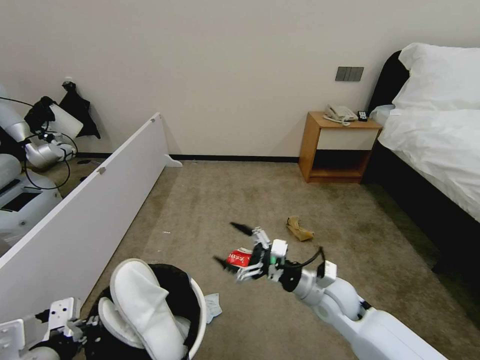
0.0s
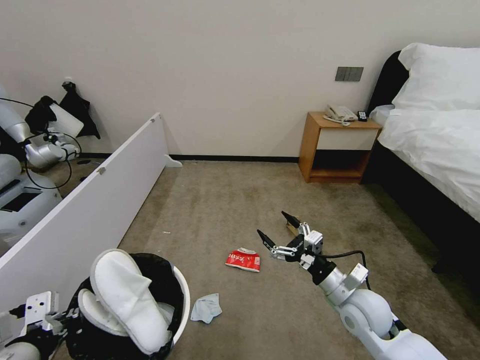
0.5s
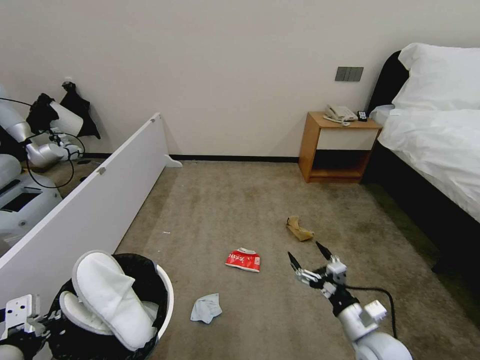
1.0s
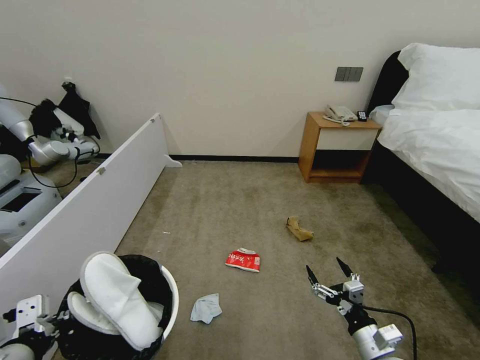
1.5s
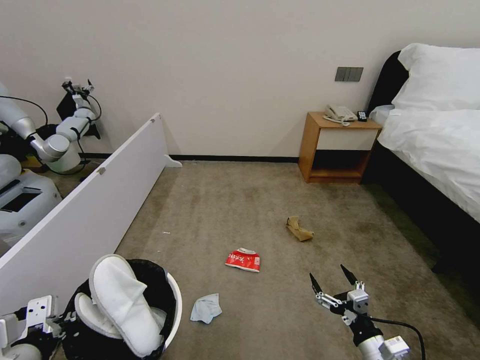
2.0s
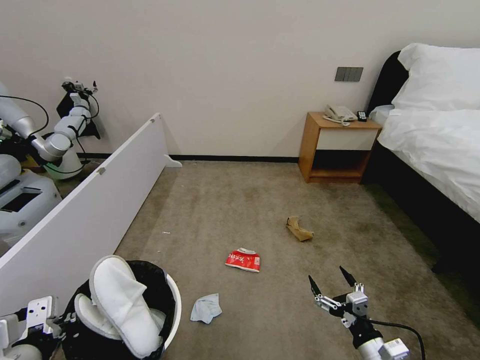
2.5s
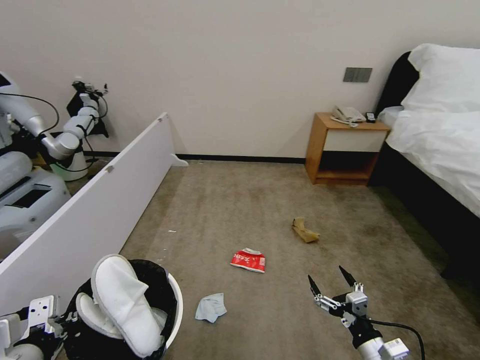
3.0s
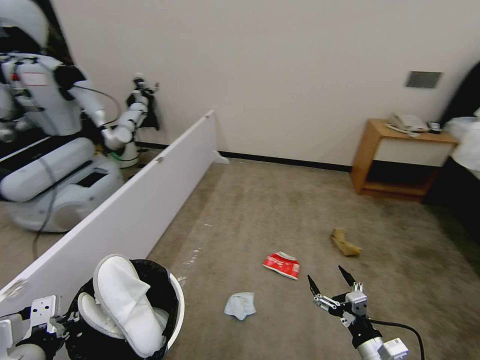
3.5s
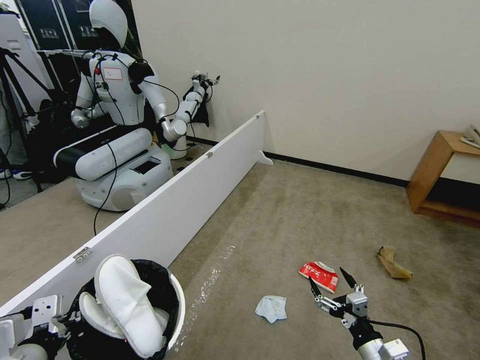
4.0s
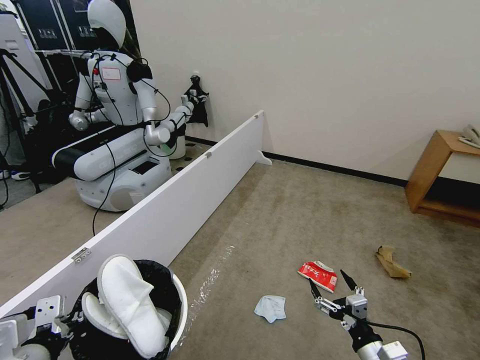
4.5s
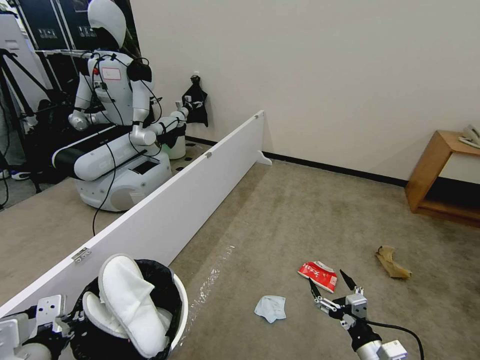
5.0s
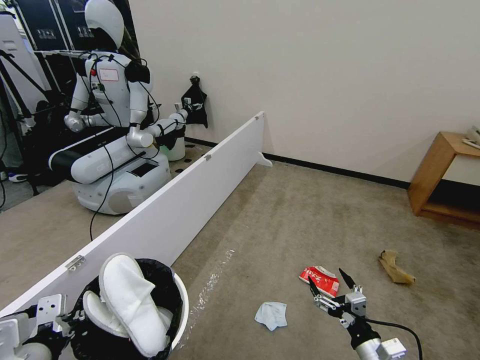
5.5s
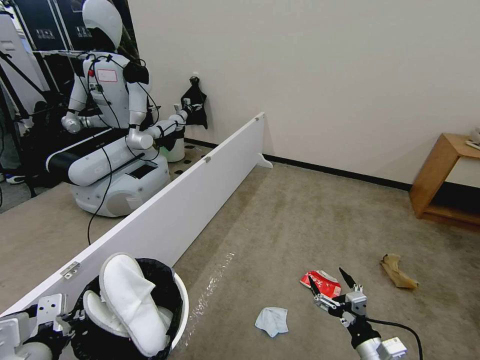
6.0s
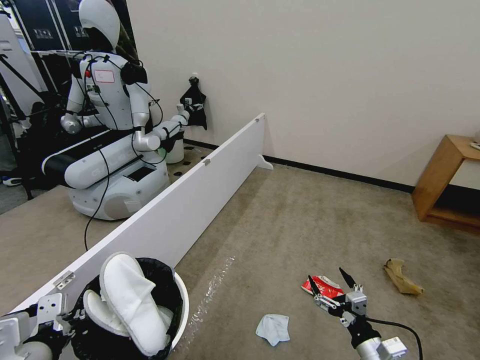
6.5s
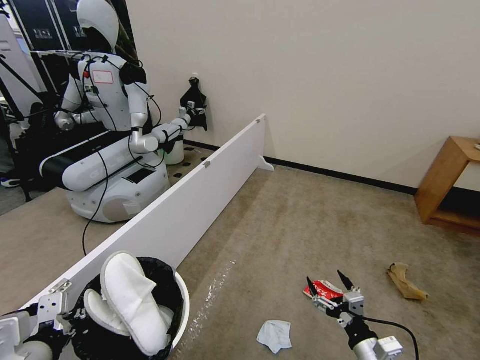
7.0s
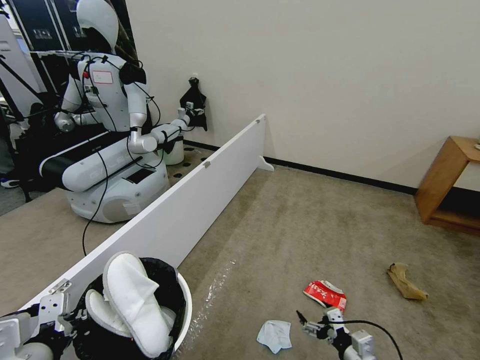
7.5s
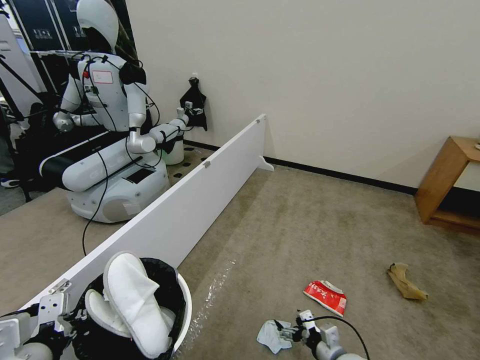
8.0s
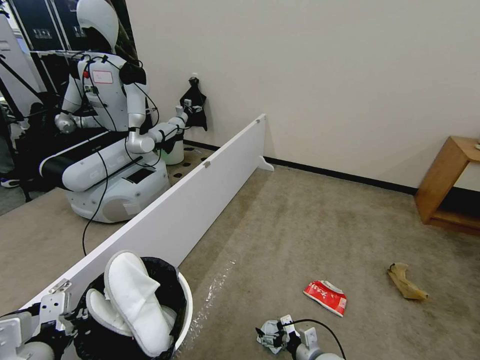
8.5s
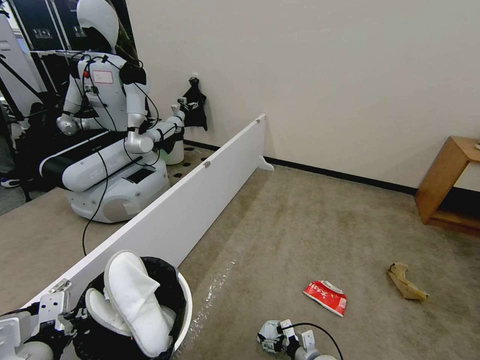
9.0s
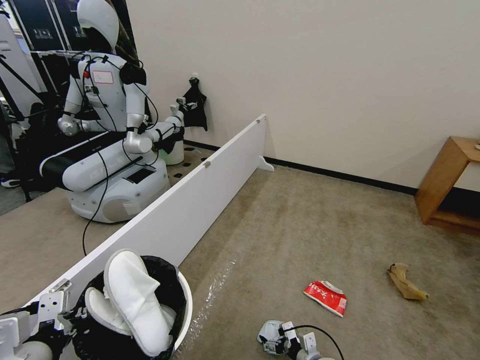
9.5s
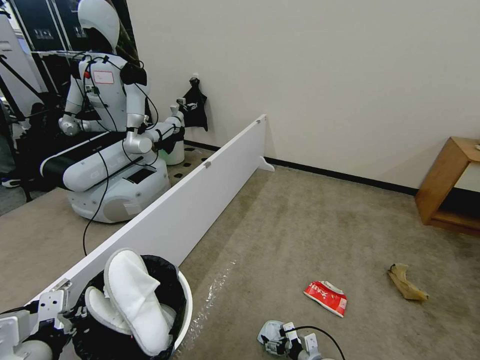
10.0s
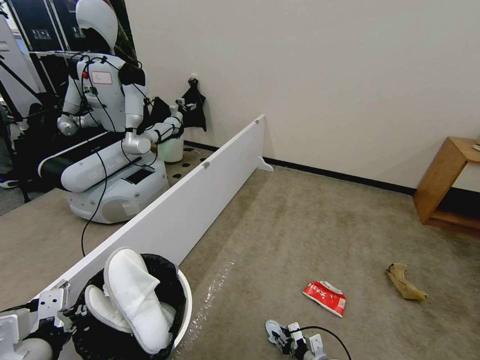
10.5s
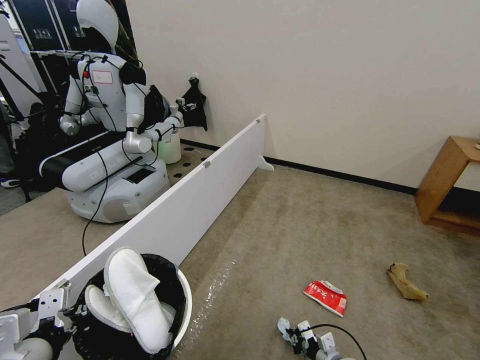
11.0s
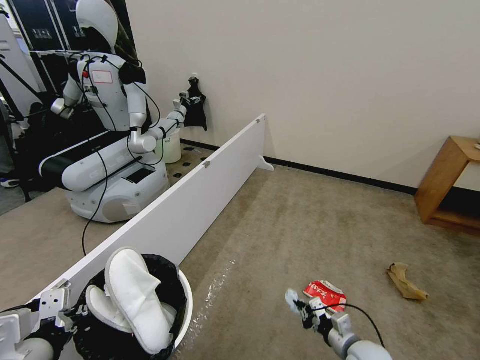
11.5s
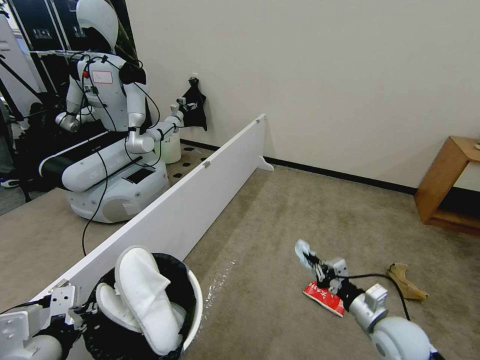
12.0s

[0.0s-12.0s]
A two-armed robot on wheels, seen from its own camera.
Task of the whole recording: Pick up the trash bin, then pick up the garbage from the floor and place it into the trash bin.
0.0s to 2.0s: The right gripper heads backward, to the right and downward, covering about 20 cm.
4.0s to 6.0s: Both grippers stay put.
6.0s to 8.0s: The right gripper goes approximately 10 cm downward and forward.
8.0s to 10.0s: The right gripper moves downward, about 5 cm.
10.0s to 12.0s: The right gripper is displaced upward and to the right by some 25 cm, and closes.

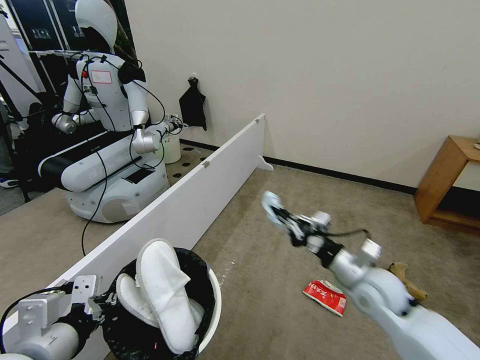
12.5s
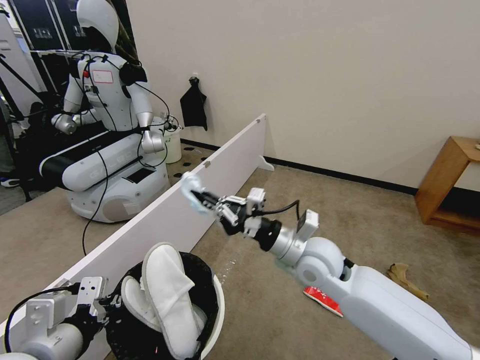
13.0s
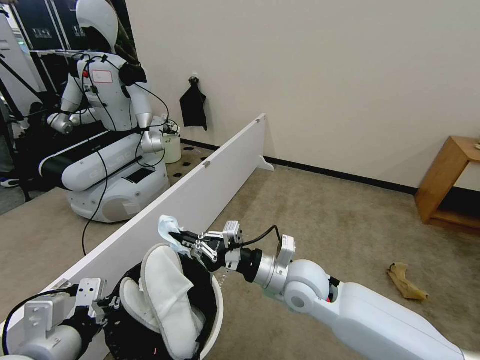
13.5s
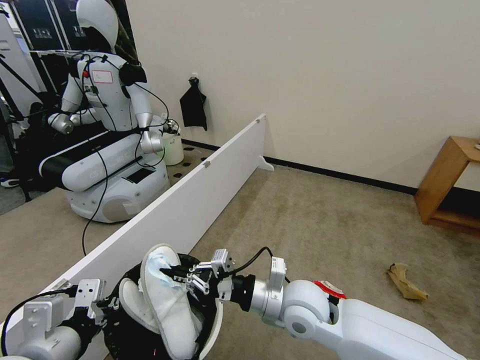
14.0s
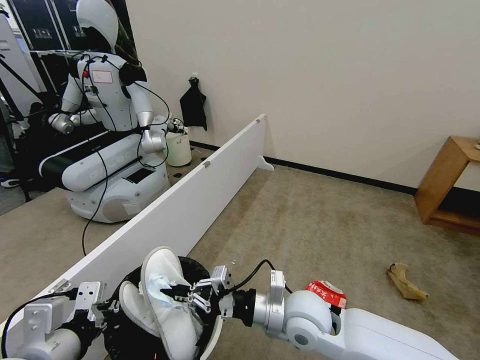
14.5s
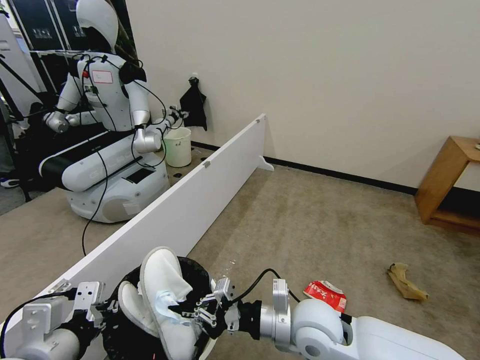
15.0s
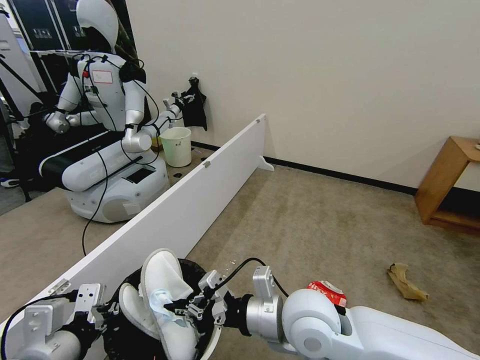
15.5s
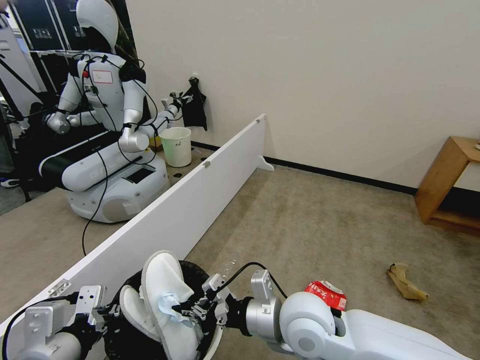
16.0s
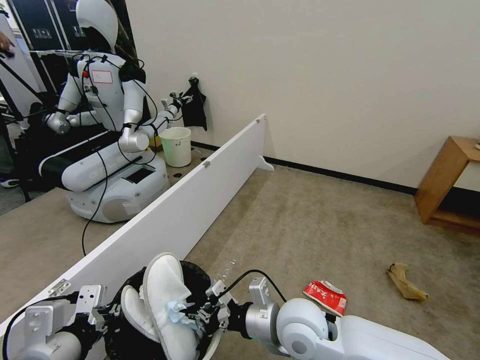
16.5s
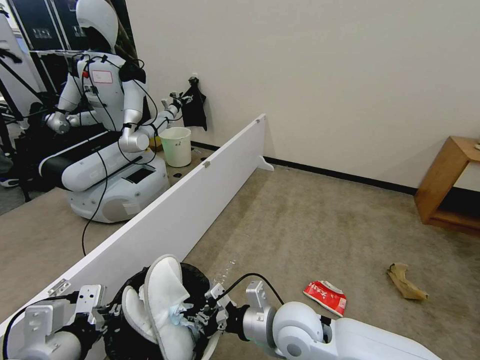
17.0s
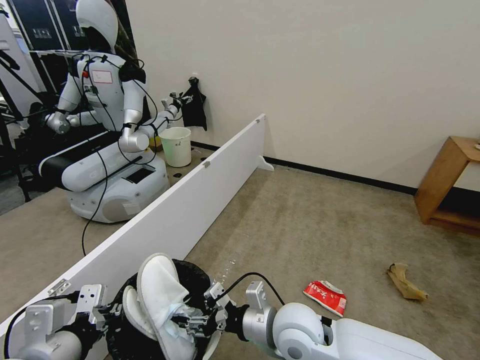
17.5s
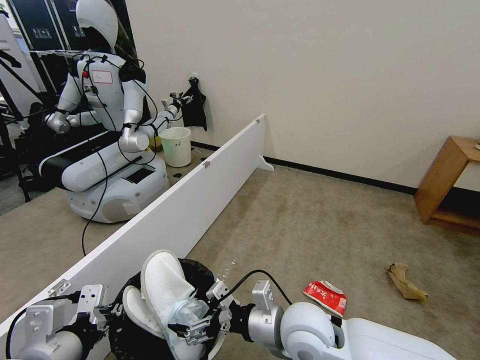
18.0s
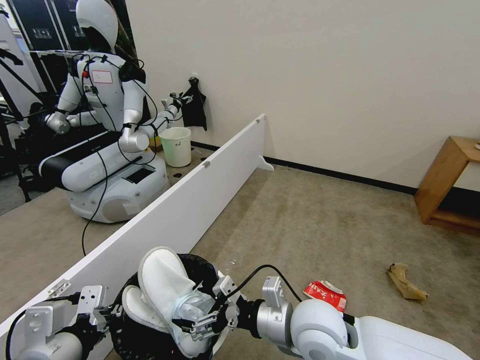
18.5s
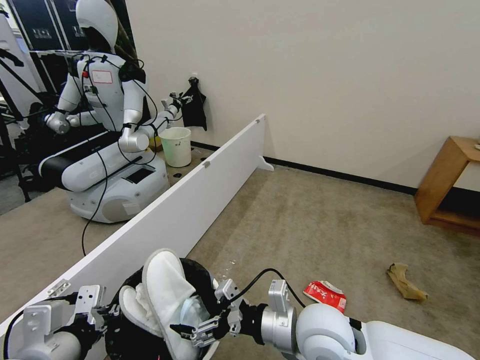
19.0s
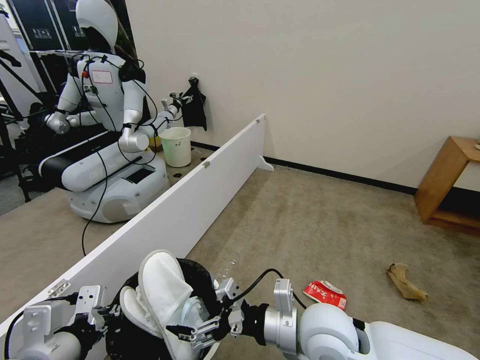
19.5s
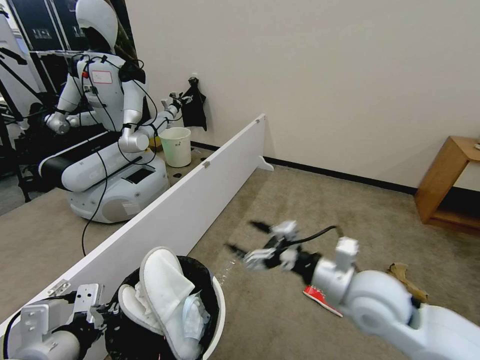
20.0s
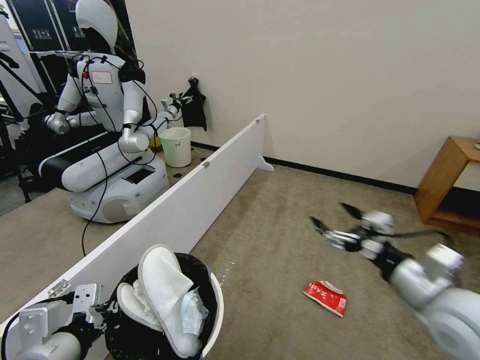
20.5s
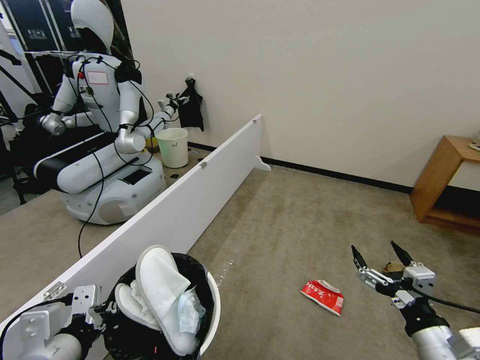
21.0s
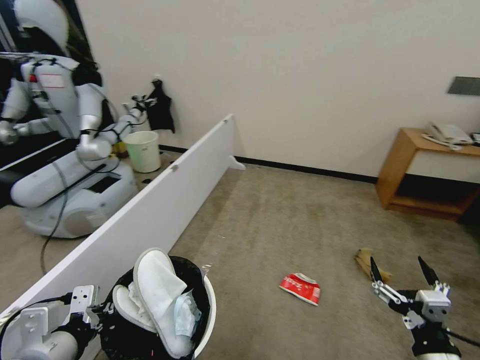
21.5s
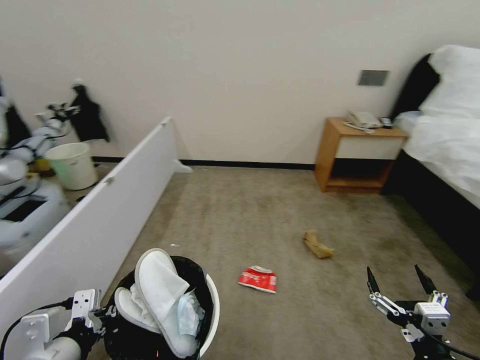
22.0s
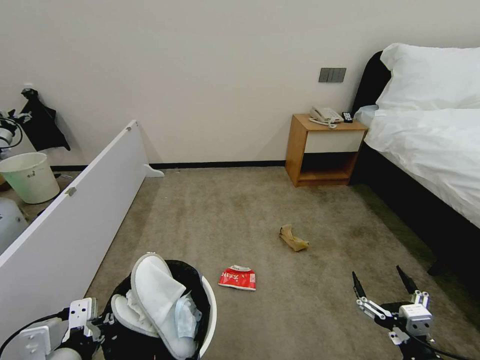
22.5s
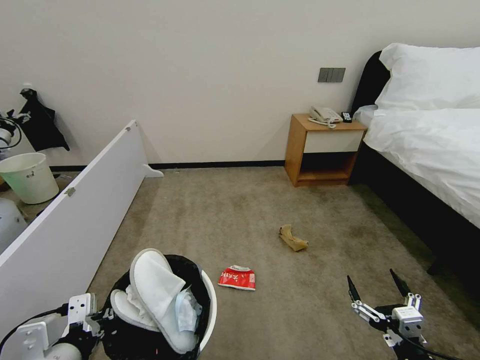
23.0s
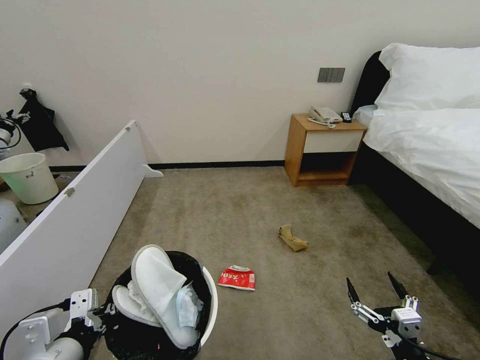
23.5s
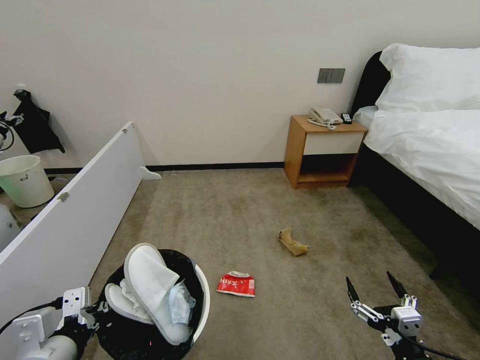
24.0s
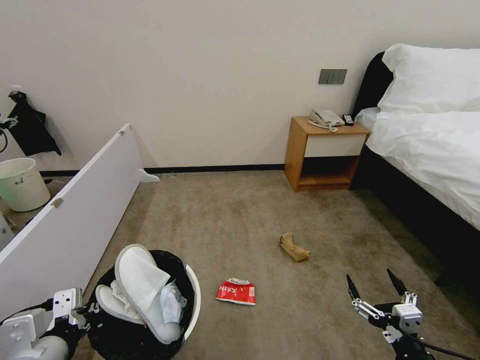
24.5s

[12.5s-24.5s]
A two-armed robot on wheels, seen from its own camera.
Task of the whole recording: Pick up the trash bin, then pick up the garbage from the floor and place it into the trash bin.
12.5s to 14.5s: The right gripper travels to the left by about 15 cm.
16.5s to 18.5s: The right gripper opens its fingers.
18.5s to 20.5s: The right gripper is displaced to the right by some 20 cm.
20.5s to 22.5s: The right gripper shifts about 20 cm downward and backward.
22.5s to 24.5s: The grippers move only a little.

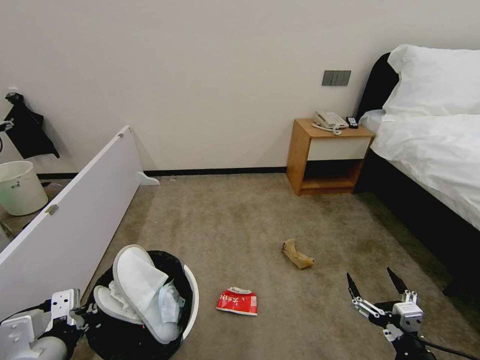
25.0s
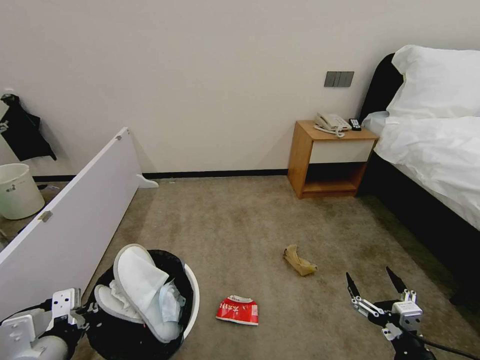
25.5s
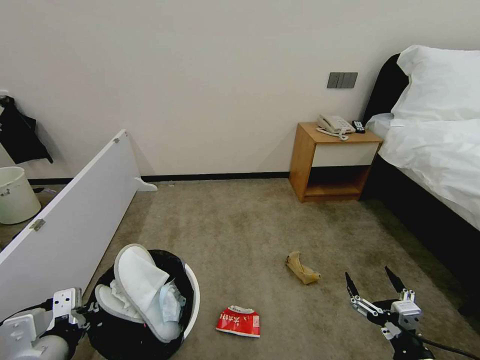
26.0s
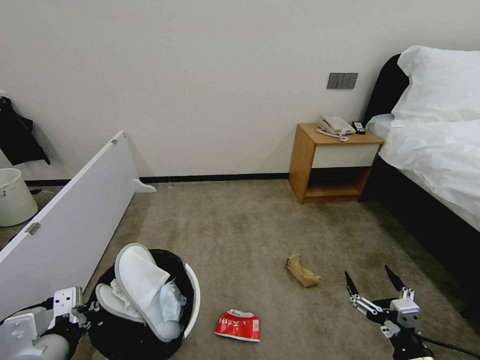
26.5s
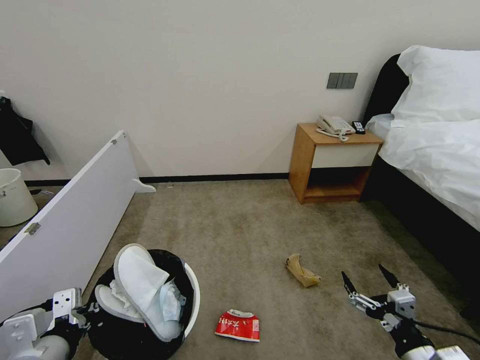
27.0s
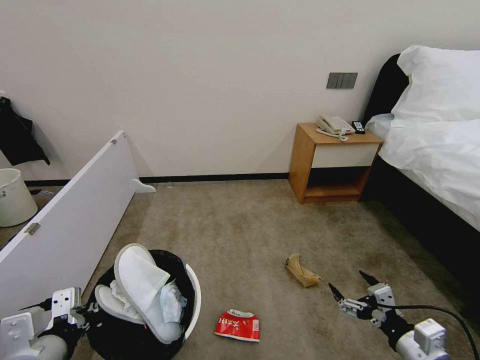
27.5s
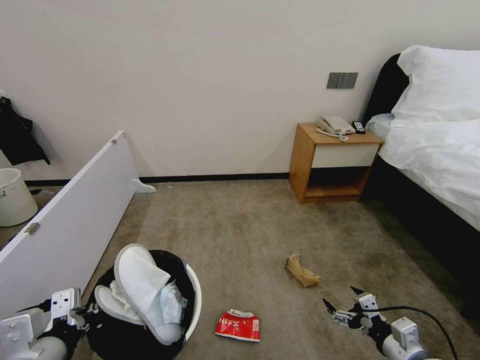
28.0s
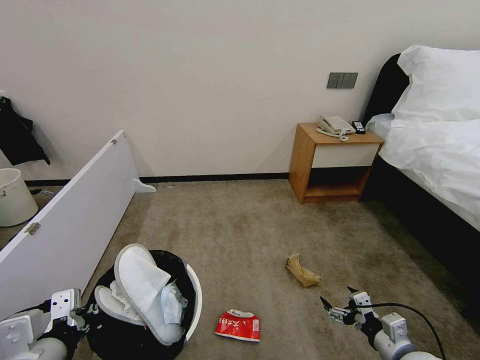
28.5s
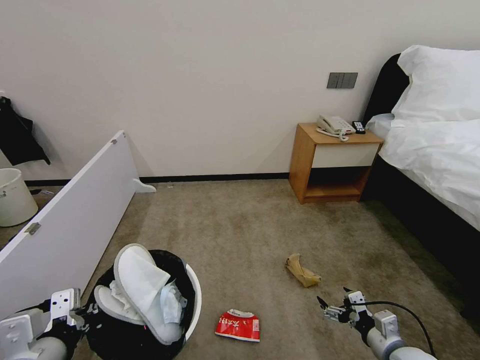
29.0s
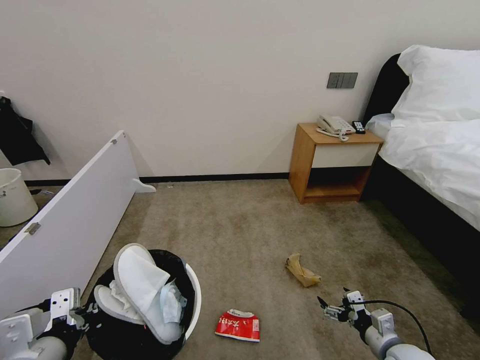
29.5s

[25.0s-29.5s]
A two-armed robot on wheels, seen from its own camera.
Task of the whole recording: Pick up the trash bin, then pick up the garbage from the floor and place it into the trash bin.
25.0s to 27.0s: The grippers move only a little.
27.0s to 29.5s: The right gripper goes roughly 15 cm forward and downward.
